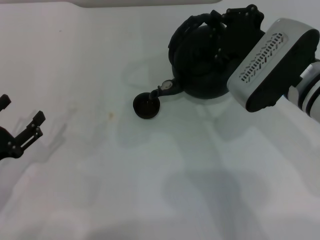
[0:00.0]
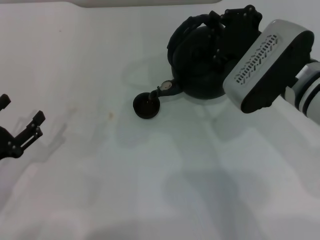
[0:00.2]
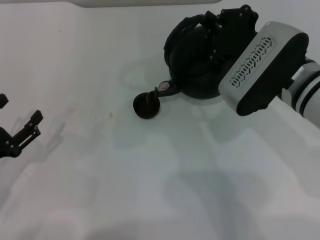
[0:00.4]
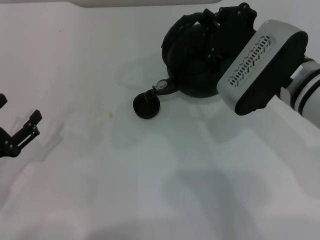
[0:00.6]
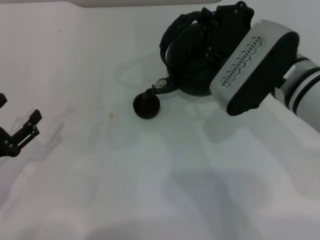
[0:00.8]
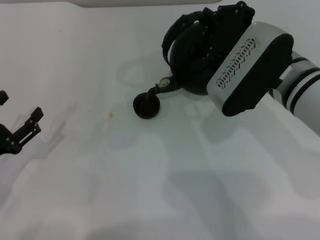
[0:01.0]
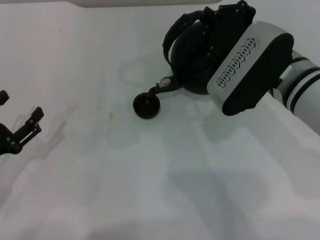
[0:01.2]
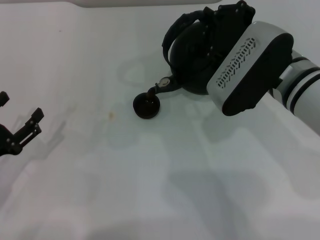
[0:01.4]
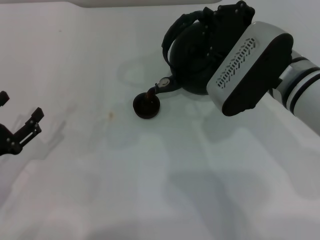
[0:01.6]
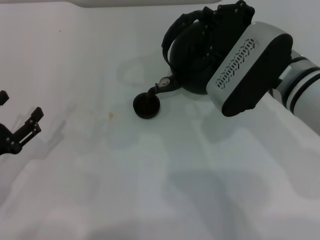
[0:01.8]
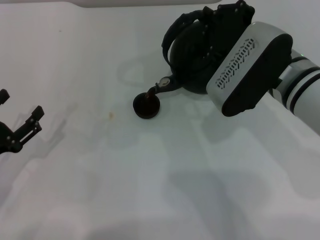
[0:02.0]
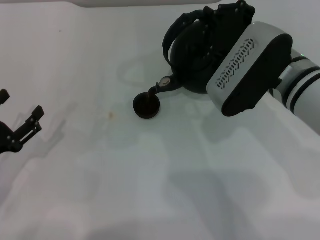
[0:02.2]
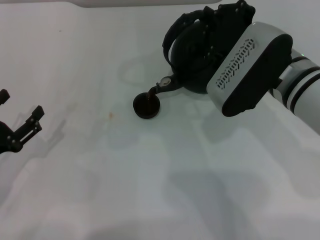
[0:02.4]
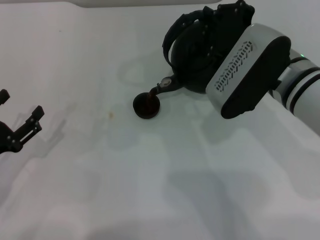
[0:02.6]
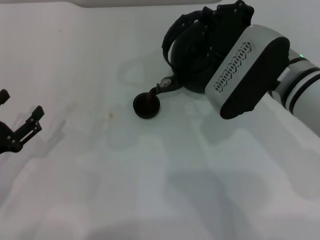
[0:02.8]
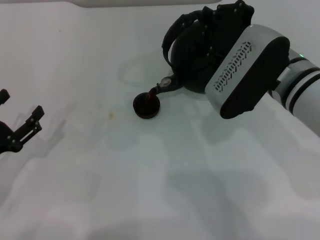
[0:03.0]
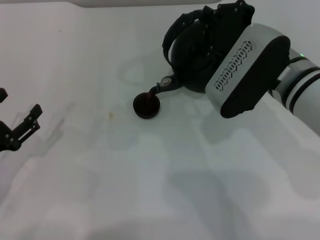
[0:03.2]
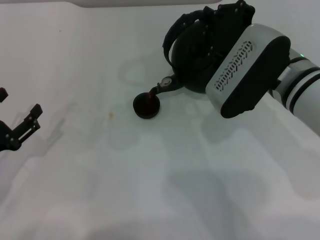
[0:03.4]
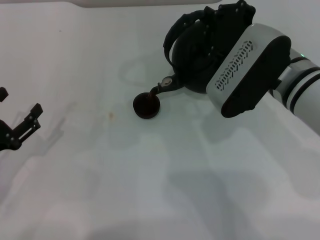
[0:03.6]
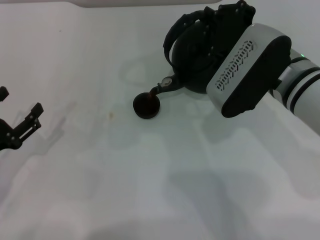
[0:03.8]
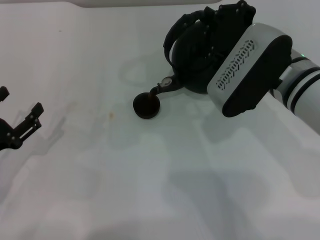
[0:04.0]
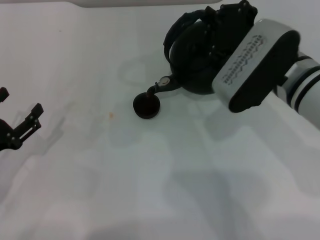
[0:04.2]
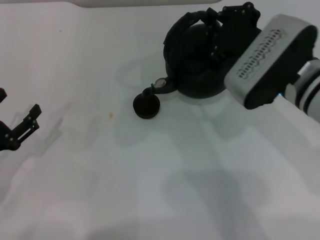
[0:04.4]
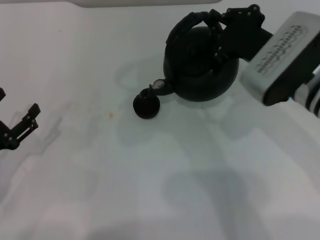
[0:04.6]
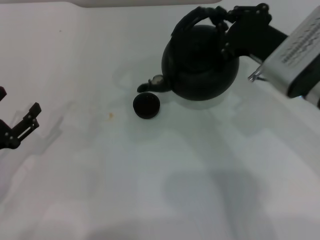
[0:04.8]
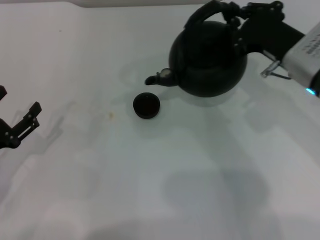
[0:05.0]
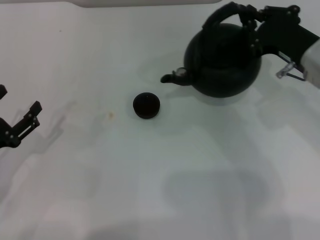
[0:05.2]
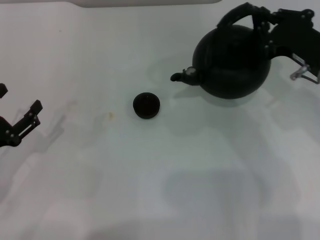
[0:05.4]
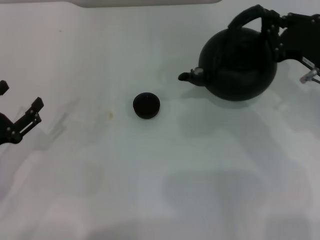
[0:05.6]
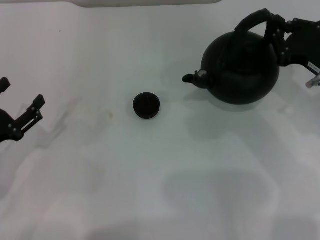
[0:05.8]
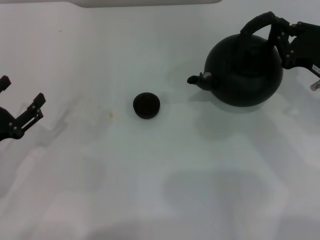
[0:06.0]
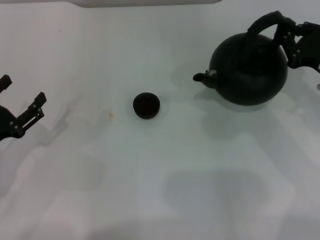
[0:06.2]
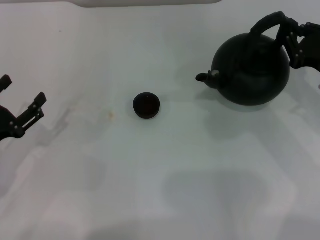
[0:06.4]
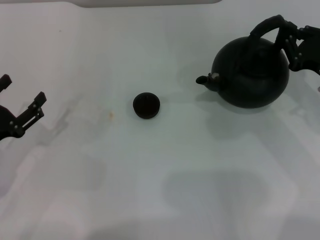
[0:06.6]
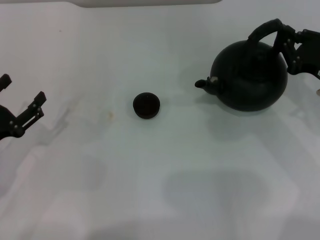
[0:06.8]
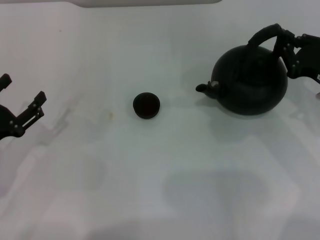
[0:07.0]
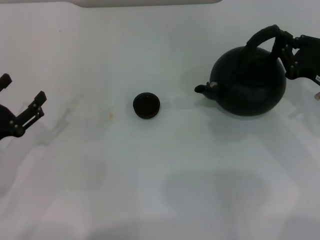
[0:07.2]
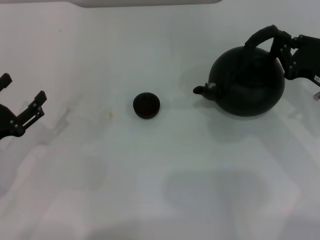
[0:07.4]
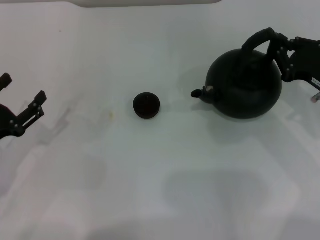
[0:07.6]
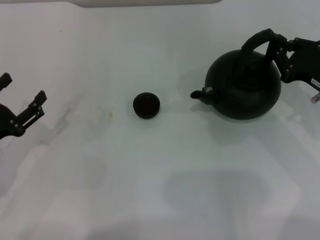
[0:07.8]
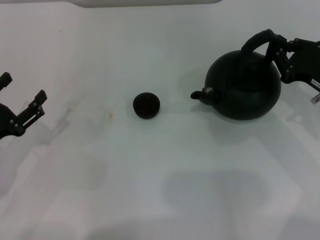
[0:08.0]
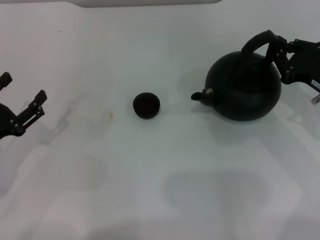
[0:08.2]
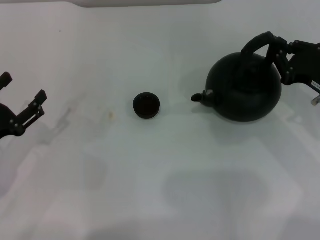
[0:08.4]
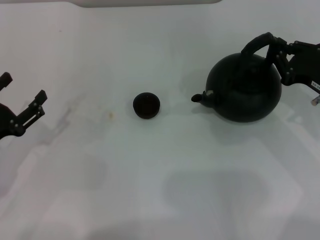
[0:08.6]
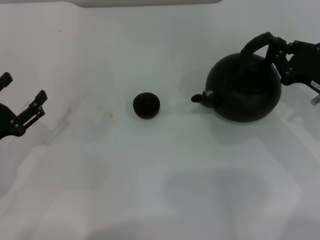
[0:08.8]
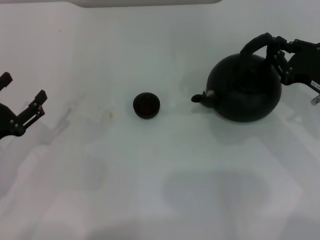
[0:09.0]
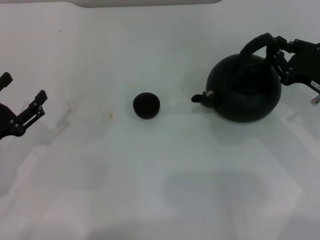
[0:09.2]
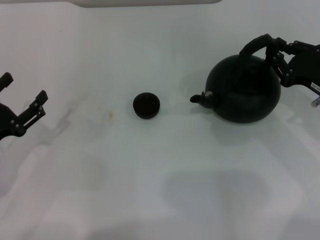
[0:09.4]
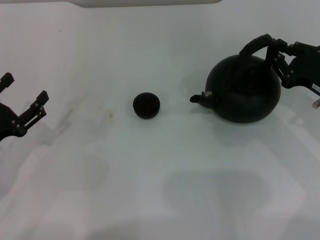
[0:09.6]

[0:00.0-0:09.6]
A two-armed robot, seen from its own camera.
Task of the whole recording: Grasp the handle of the teapot with one hand and pour tea into the teacup.
Step, 0:00.0 to 0:05.0: Pour tea into the teacup with the right gripper.
0:00.0 to 0:01.6: The grippers stay close to where they were, moving slightly.
0:01.6 to 0:03.2: Both grippers stay put.
0:04.8 to 0:06.4: The right gripper heads to the right, covering roughly 10 cm.
0:06.4 to 0:08.0: The grippers make only small movements.
0:08.0 to 0:09.6: Both grippers stay put.

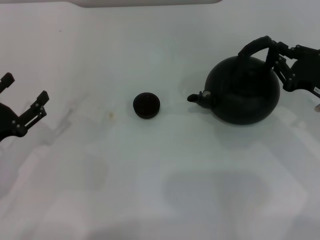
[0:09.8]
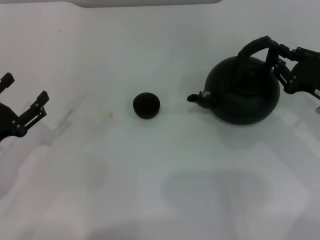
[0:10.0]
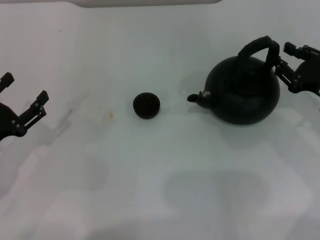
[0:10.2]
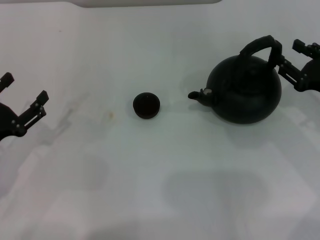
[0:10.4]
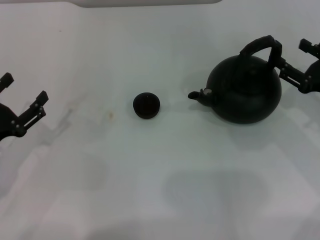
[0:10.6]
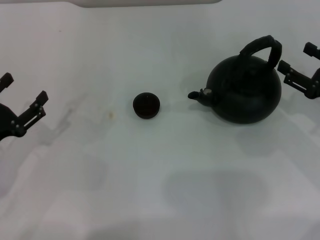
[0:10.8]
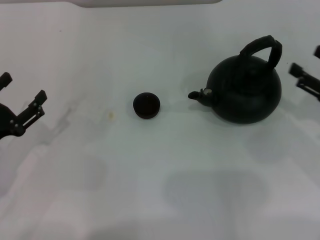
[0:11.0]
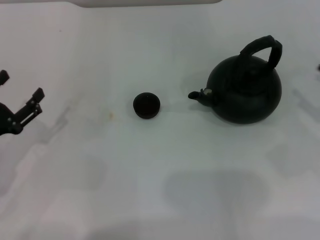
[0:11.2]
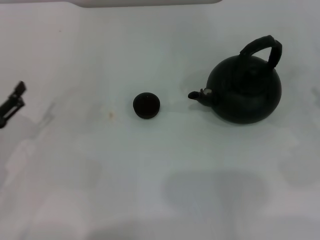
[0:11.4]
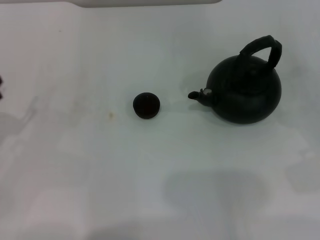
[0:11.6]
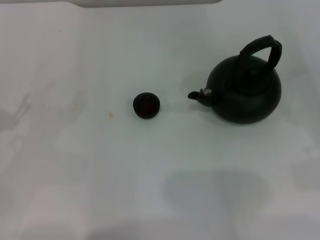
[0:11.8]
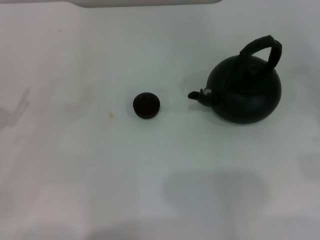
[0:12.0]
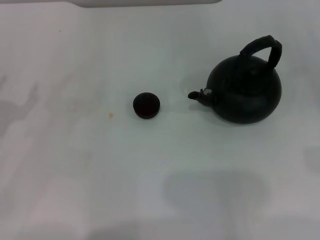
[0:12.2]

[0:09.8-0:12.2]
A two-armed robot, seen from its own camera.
Task of the whole recording: Grasp the handle of the teapot with one hand and pour tea into the teacup.
0:09.8 to 0:11.0: The right gripper moves approximately 5 cm, and opens up.
0:11.0 to 0:12.2: The right gripper moves to the right, approximately 10 cm.

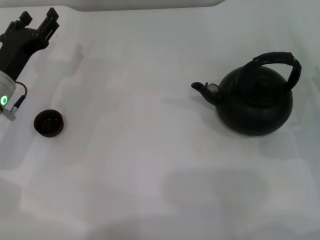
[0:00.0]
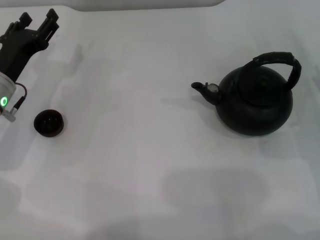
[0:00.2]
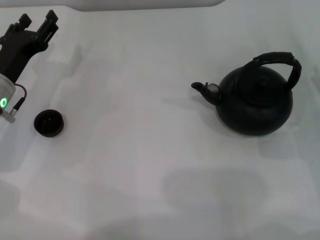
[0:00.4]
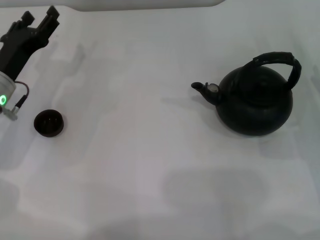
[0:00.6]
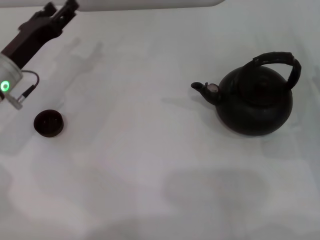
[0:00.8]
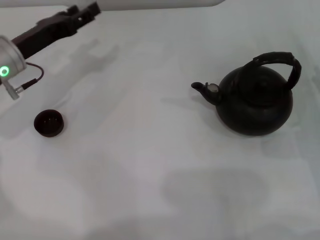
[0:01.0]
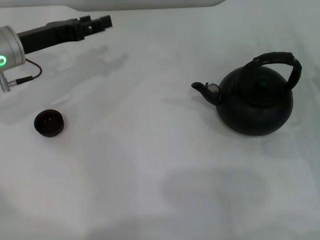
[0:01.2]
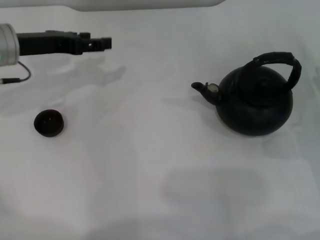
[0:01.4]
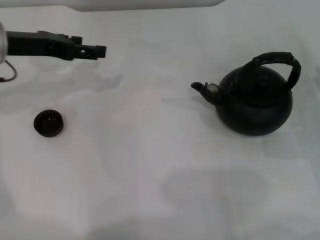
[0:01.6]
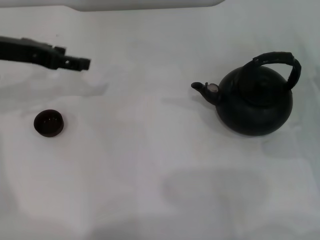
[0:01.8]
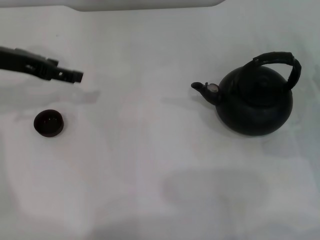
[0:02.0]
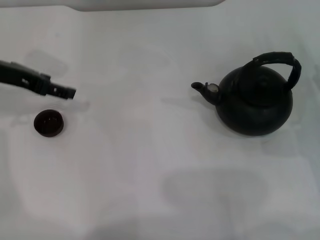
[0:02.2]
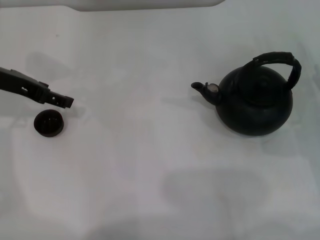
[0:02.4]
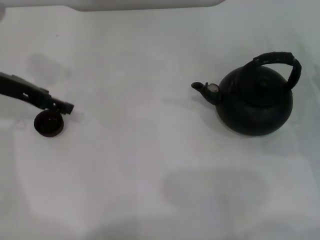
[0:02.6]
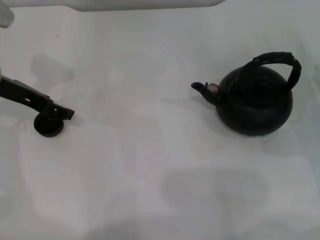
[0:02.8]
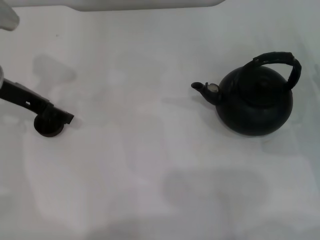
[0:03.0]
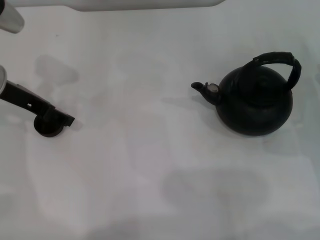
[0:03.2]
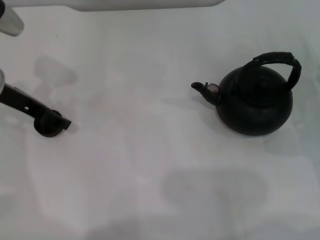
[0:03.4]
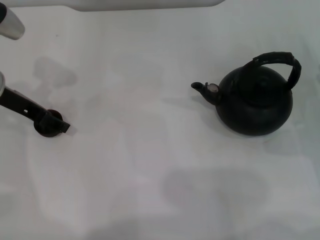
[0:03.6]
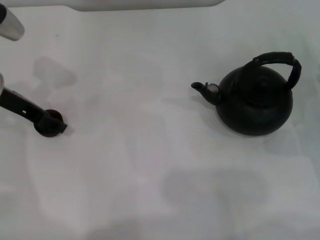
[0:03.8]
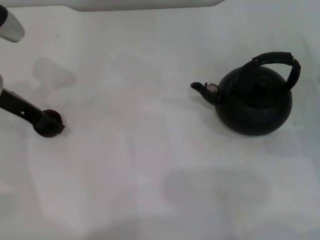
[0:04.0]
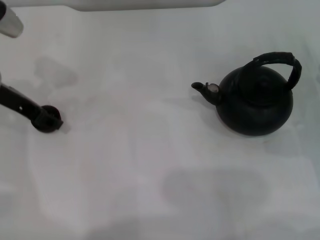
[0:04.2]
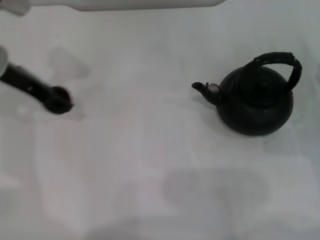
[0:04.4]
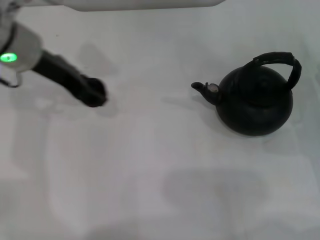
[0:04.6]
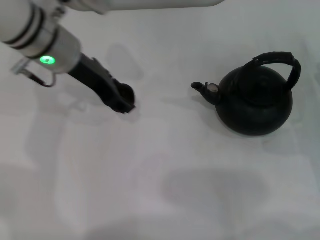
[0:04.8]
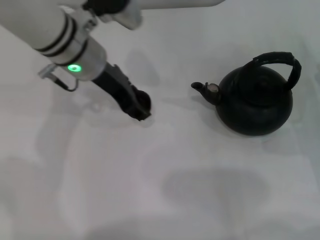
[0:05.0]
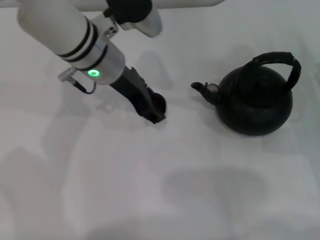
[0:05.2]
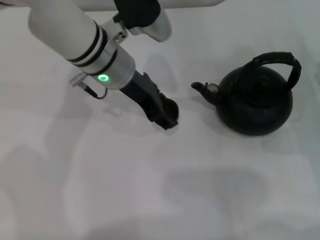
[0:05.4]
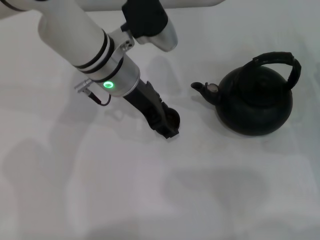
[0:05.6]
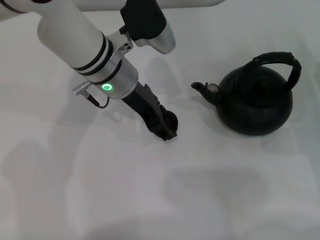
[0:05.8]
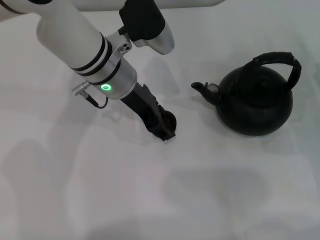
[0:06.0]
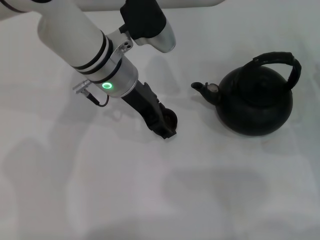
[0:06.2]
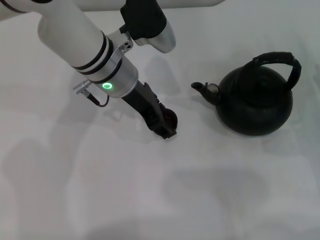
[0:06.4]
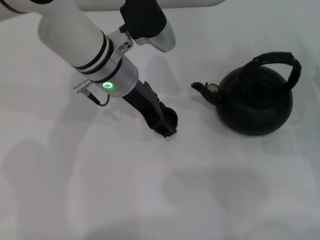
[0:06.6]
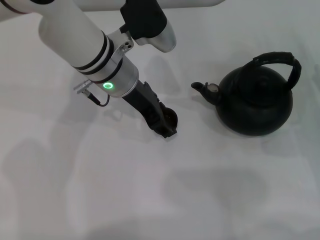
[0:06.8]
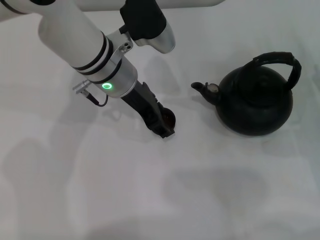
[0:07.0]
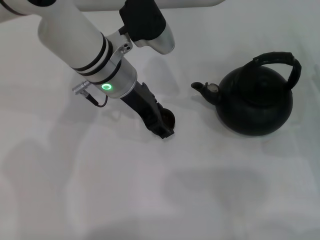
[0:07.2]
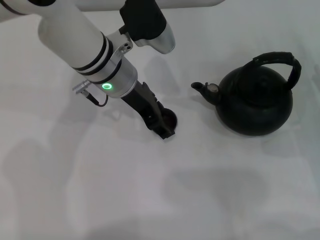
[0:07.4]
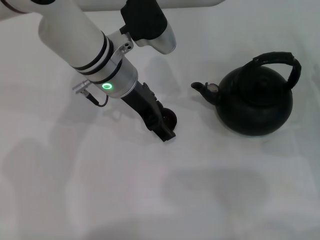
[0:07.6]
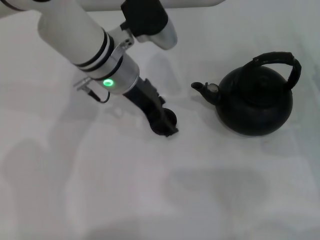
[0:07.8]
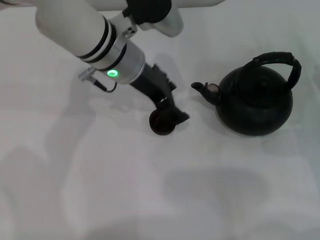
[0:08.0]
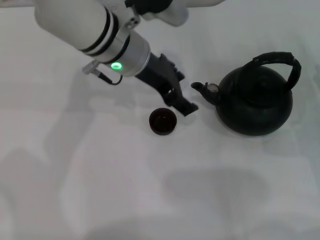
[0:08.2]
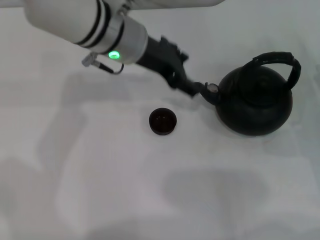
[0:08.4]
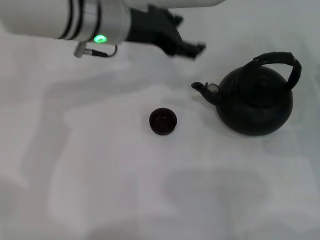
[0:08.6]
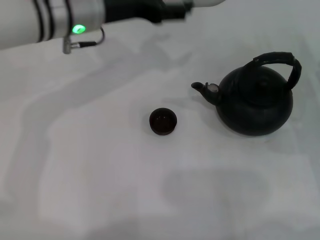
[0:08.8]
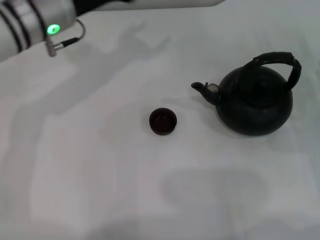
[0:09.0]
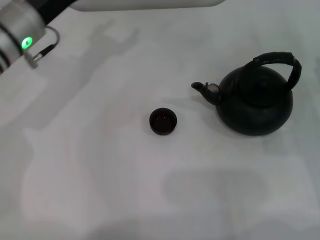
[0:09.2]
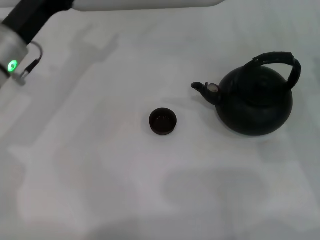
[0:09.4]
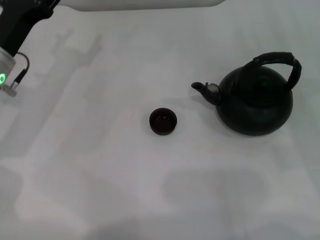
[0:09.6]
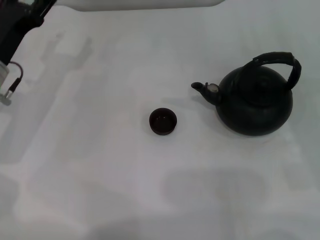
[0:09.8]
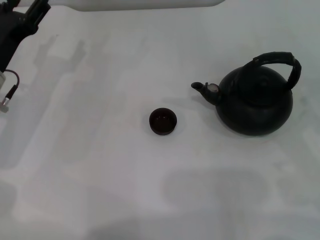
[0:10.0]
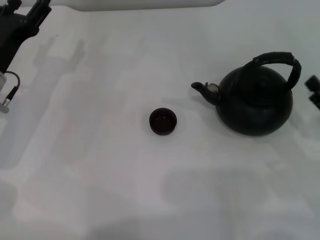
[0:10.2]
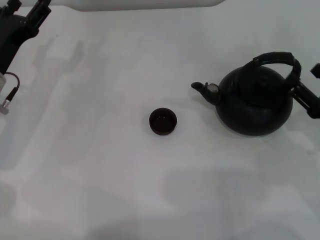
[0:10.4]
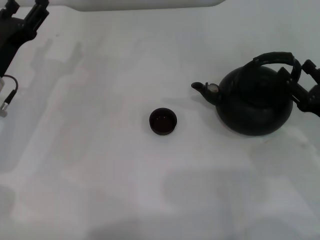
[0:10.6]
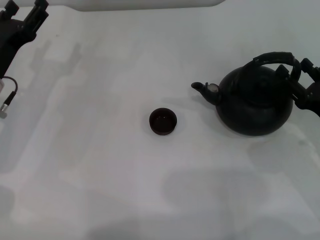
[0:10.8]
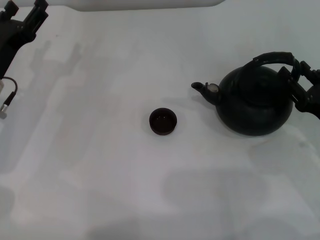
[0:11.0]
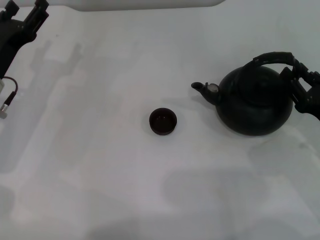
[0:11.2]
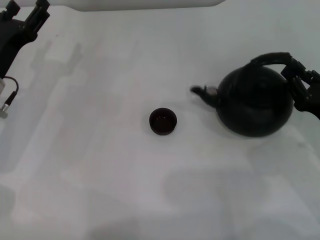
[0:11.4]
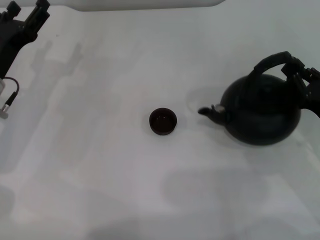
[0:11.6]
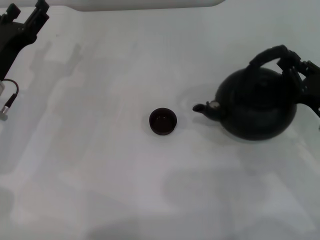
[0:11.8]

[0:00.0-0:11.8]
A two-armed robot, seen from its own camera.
Task of the whole recording: Grasp the handle of the teapot with one hand and pour tea into the teacup.
Step, 0:00.0 to 0:04.0: Pick up the teacup with the left gripper.
Step, 0:04.4 to 0:07.8: Place the teacup in the center of view with the left gripper.
0:00.0 to 0:01.4: The left gripper goes about 10 cm upward and forward.
0:01.4 to 0:03.0: The left gripper opens up.
0:03.0 to 0:04.4: The left gripper closes its fingers.
0:04.4 to 0:06.0: The left gripper moves to the right, approximately 15 cm.
0:06.0 to 0:07.4: Both grippers stay about where they are.
0:07.4 to 0:08.8: The left gripper heads to the left, covering approximately 5 cm, and opens up.
0:08.8 to 0:10.4: The right gripper changes place by about 5 cm. Meanwhile the left gripper heads to the left, downward and backward, covering roughly 20 cm.
0:10.4 to 0:11.8: The right gripper closes up.
